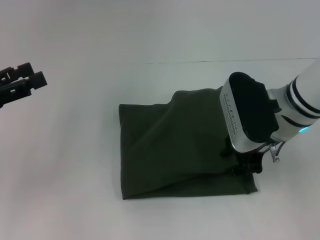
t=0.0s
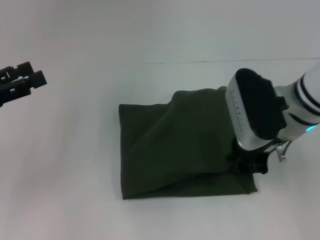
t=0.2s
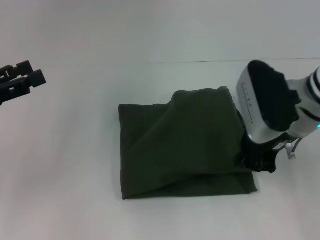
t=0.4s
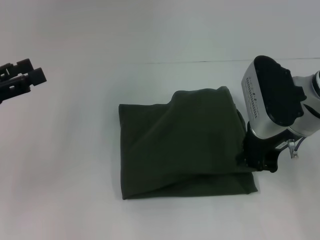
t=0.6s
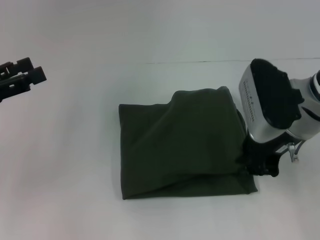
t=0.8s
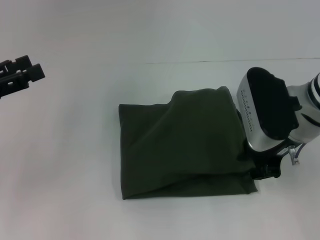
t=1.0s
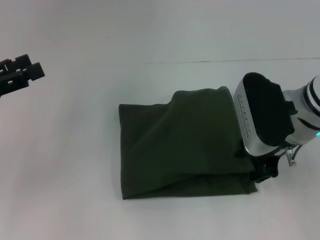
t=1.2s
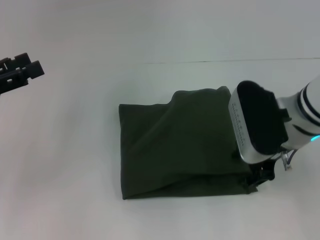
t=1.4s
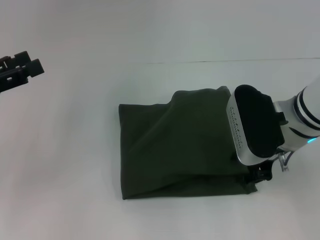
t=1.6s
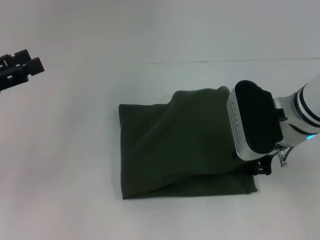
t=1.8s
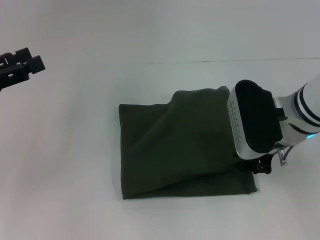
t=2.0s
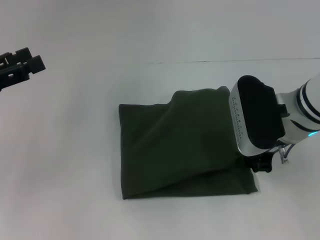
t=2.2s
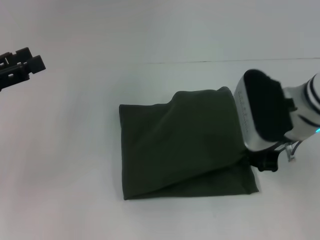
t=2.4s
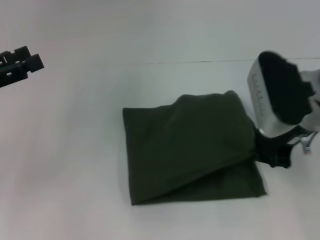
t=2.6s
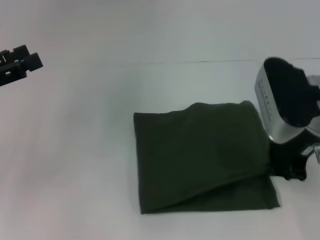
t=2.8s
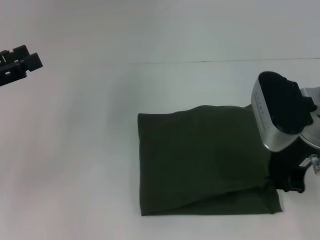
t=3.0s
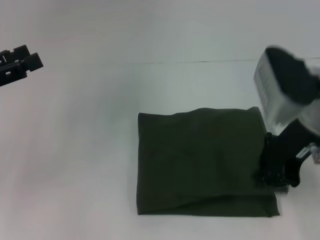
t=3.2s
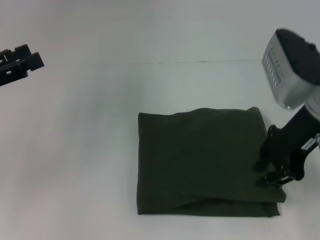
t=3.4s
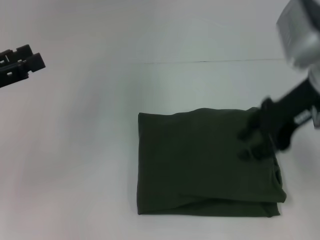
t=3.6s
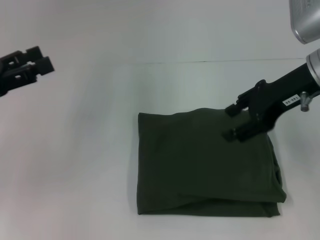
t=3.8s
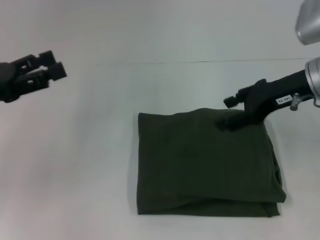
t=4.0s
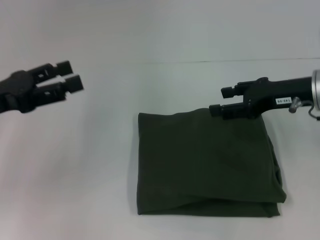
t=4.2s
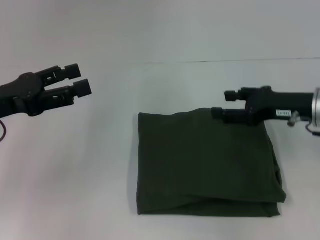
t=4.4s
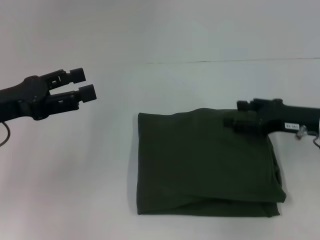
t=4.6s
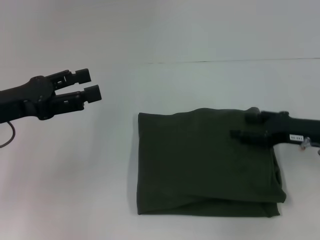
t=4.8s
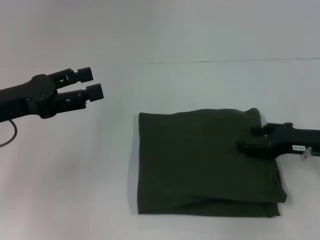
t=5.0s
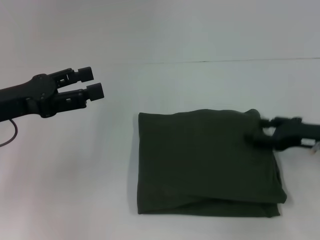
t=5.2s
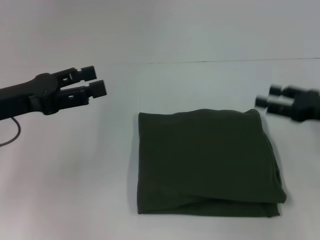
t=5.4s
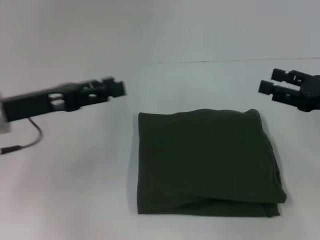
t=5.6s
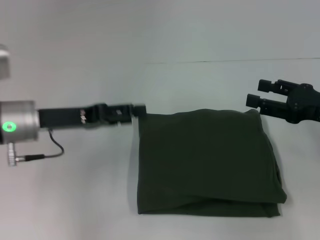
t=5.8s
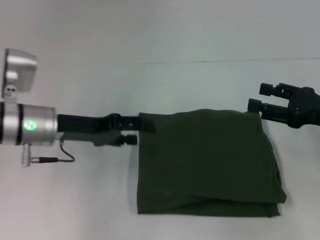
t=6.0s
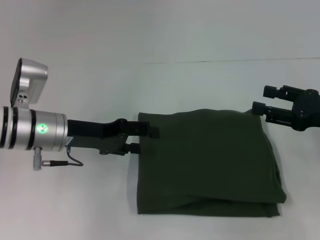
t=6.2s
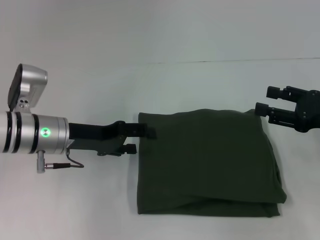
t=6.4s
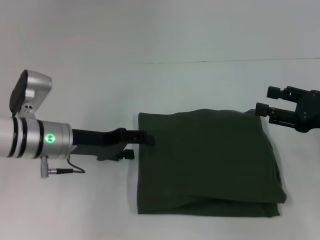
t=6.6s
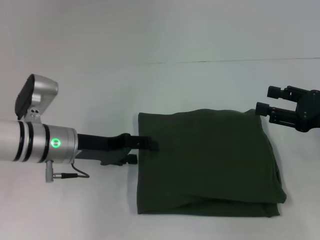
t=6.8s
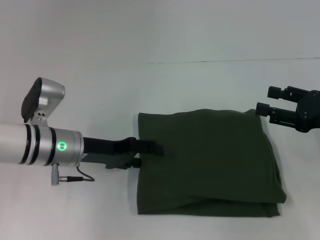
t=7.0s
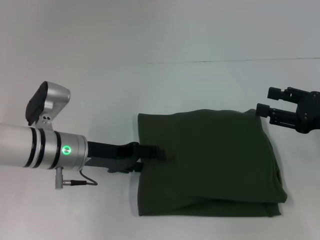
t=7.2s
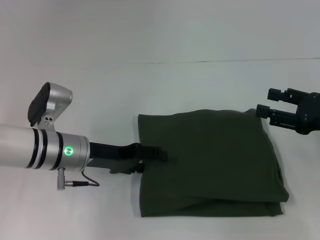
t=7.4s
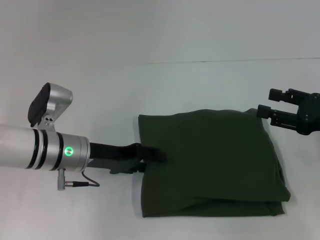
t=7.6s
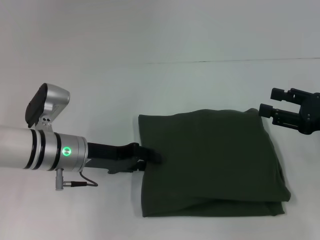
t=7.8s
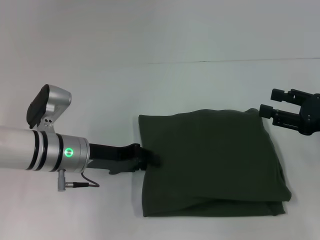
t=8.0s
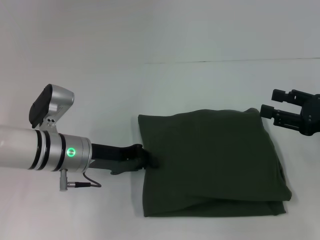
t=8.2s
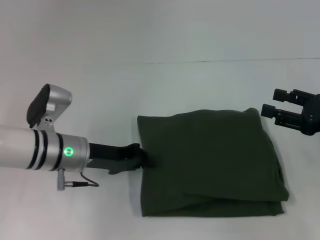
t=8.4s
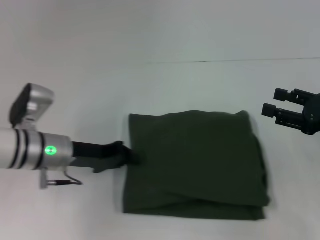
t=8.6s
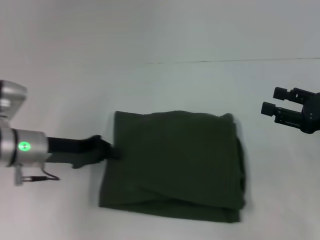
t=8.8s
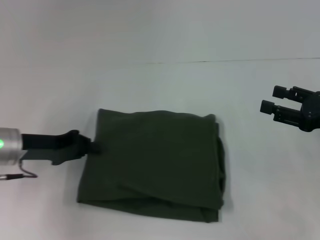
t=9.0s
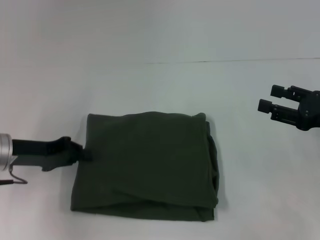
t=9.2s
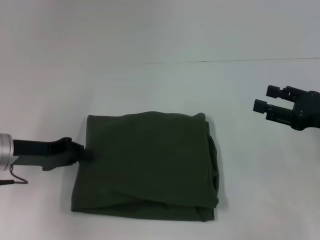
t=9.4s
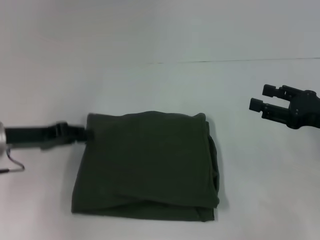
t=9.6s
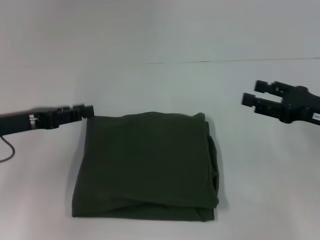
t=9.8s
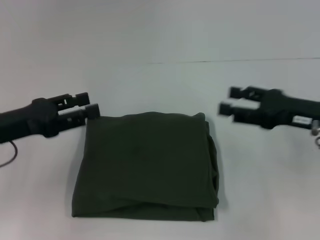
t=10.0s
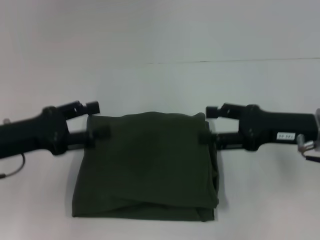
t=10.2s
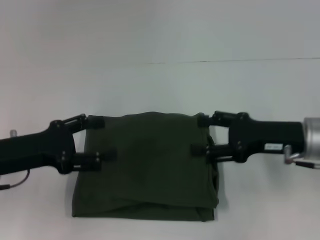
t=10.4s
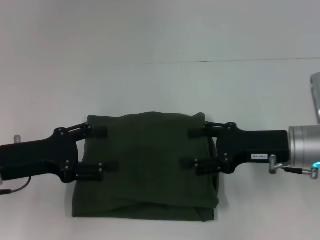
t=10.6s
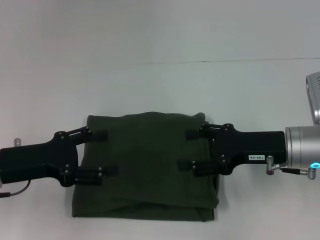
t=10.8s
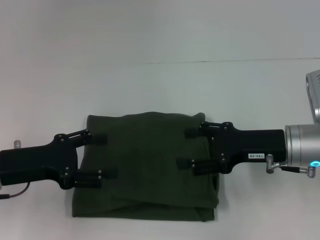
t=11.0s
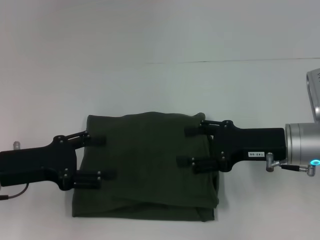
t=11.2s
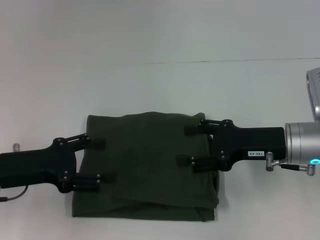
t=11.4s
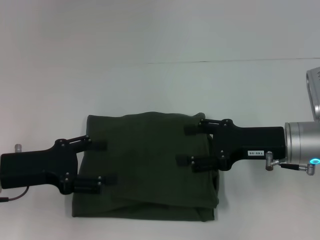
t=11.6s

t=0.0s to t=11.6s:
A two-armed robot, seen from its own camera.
t=0.0s to t=1.4s: The right gripper closes, then reopens.
t=1.4s to t=2.8s: The right gripper closes up.
t=2.8s to t=4.4s: The left gripper changes place by about 5 cm; the right gripper shifts some 10 cm downward and to the right, and opens.
t=4.4s to t=5.8s: The grippers both shift to the right by roughly 5 cm.
t=5.8s to t=7.2s: The left gripper travels downward and to the right by approximately 10 cm.
t=7.2s to t=8.8s: The left gripper travels to the left by roughly 5 cm, and closes its fingers.
t=8.8s to t=10.2s: The right gripper shifts roughly 10 cm to the left. Meanwhile the left gripper goes about 5 cm backward, and opens up.
t=10.2s to t=11.6s: The left gripper opens up.
